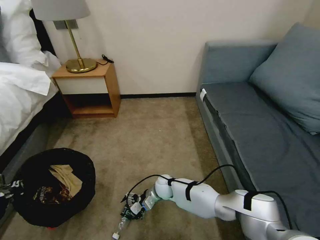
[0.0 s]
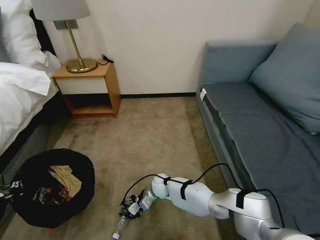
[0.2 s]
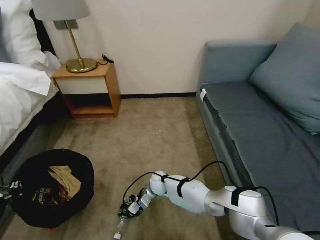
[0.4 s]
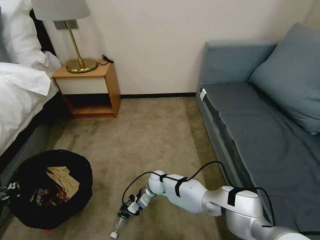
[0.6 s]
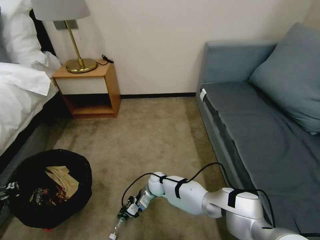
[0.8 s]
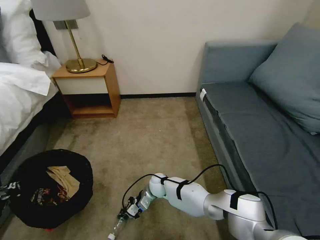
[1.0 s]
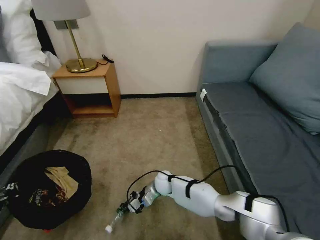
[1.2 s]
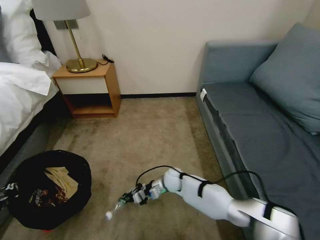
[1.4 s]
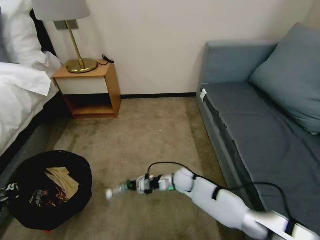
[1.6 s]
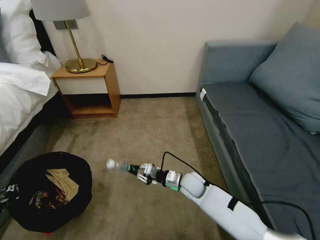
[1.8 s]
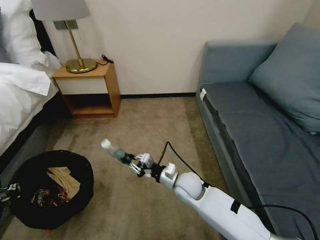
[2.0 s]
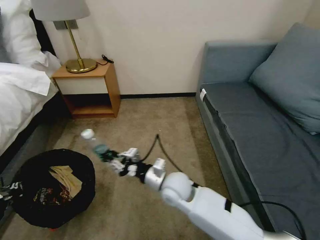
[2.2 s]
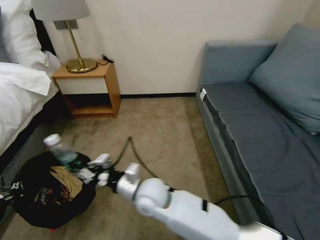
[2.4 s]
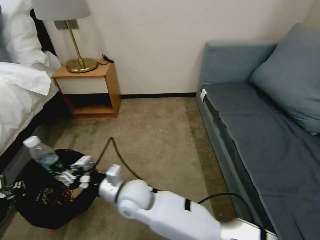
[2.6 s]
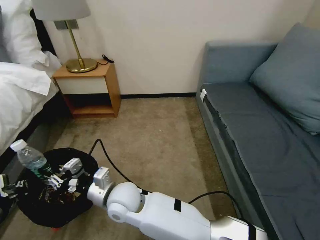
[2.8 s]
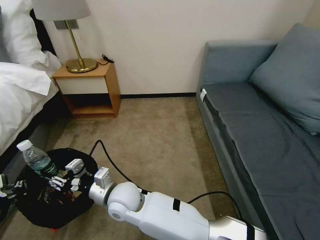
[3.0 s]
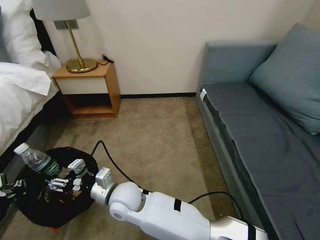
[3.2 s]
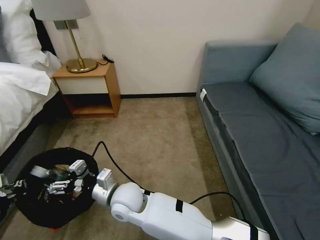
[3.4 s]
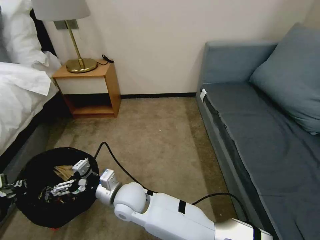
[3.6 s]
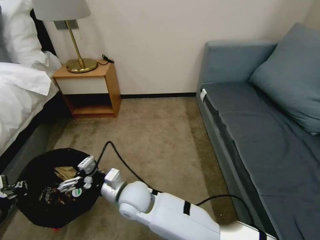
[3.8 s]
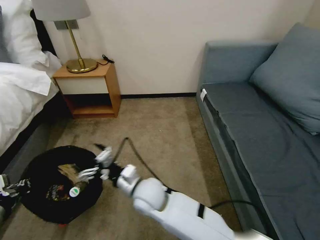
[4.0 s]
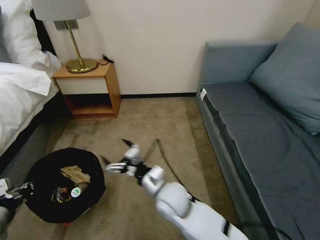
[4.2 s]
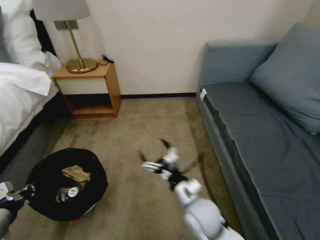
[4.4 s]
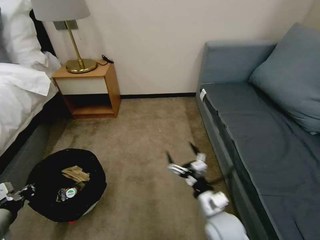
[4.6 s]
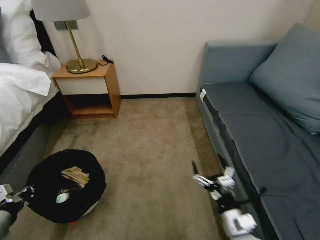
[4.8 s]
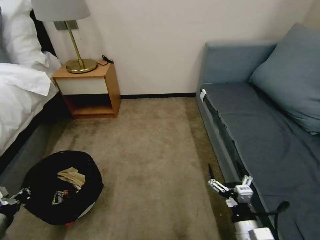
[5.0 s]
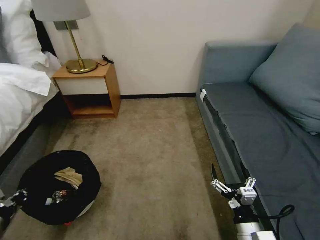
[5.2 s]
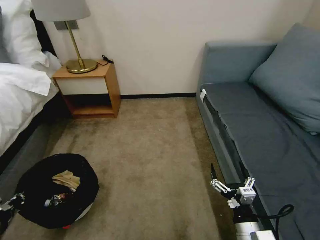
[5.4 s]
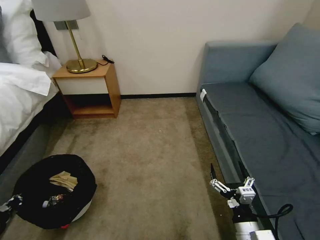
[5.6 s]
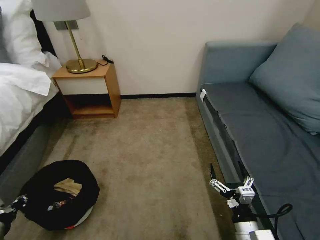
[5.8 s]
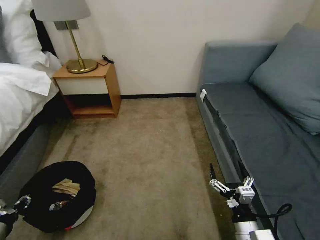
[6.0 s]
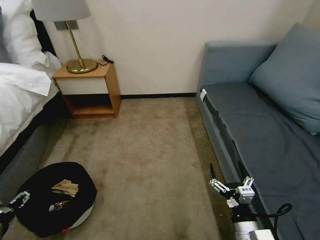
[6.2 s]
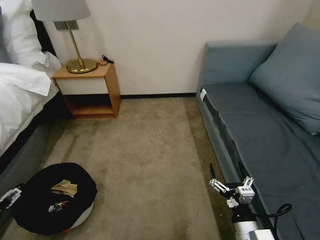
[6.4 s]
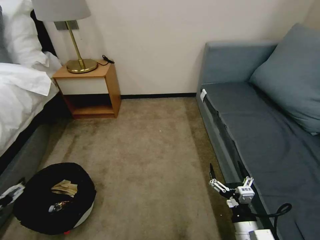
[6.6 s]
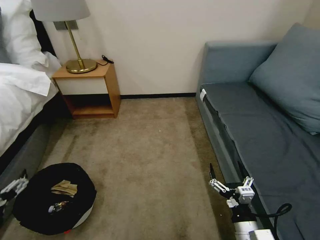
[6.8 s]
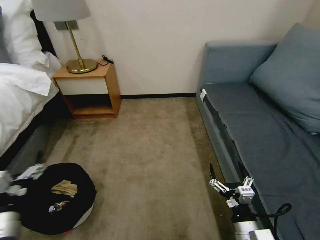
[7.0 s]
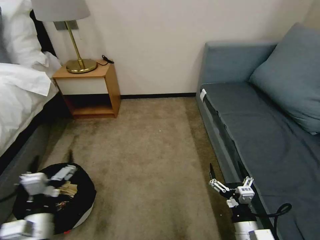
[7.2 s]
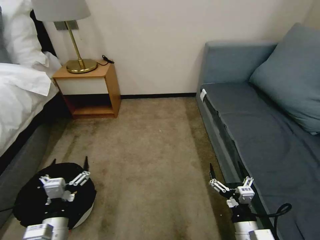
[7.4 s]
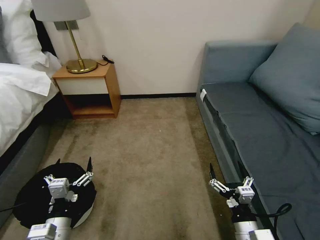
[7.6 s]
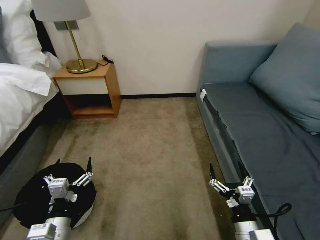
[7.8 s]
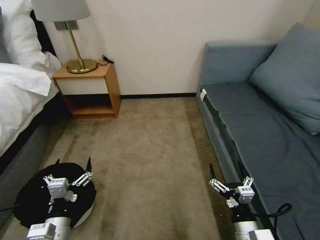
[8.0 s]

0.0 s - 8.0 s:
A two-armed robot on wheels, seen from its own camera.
Task of the whole recording: Pick up the trash bin, then pick up the garbage on the floor and place it into the trash bin.
0.0 s - 1.6 s: The right gripper travels to the right by some 10 cm, and closes its fingers.
1.6 s - 3.2 s: The right gripper goes approximately 30 cm to the left, upward and backward, and opens.
3.2 s - 4.8 s: The left gripper goes roughly 5 cm downward. The right gripper heads to the right, covering roughly 35 cm, and opens.
4.8 s - 6.4 s: The left gripper opens.
6.4 s - 8.0 s: The left gripper travels to the right by roughly 20 cm.

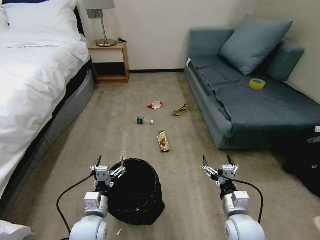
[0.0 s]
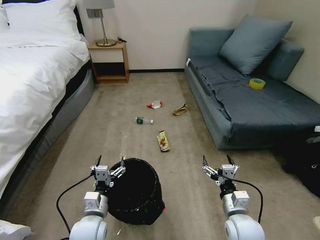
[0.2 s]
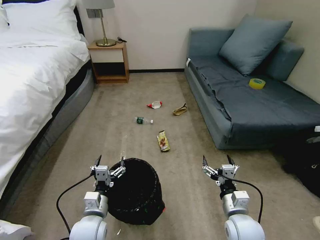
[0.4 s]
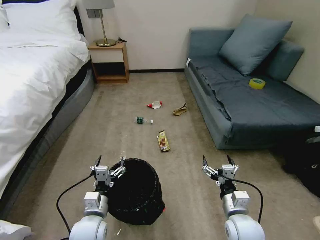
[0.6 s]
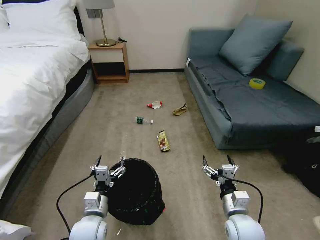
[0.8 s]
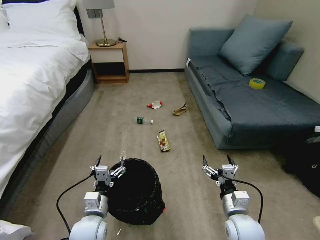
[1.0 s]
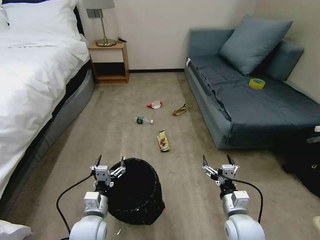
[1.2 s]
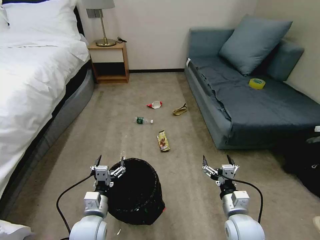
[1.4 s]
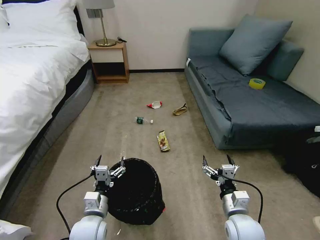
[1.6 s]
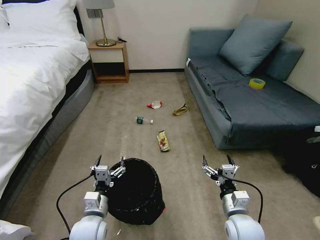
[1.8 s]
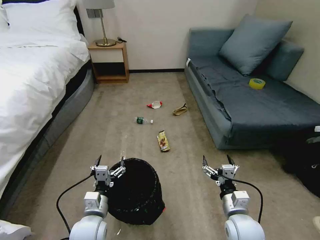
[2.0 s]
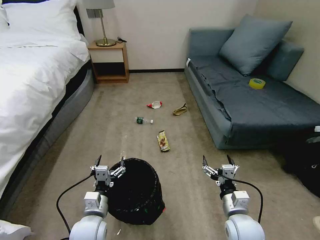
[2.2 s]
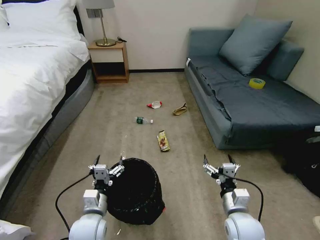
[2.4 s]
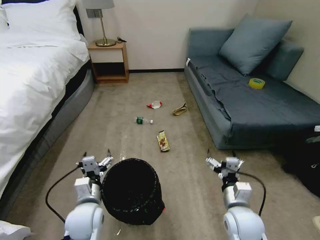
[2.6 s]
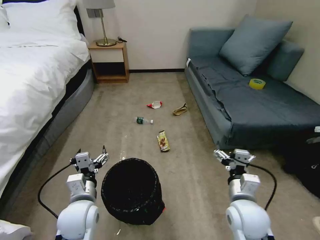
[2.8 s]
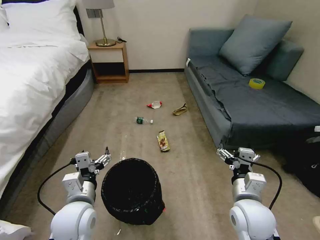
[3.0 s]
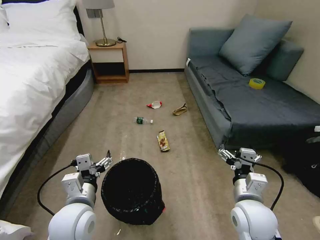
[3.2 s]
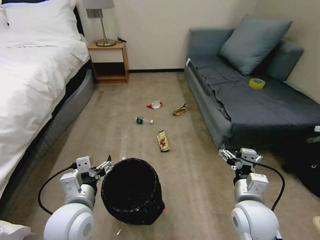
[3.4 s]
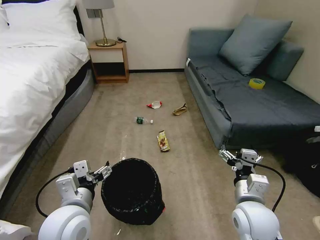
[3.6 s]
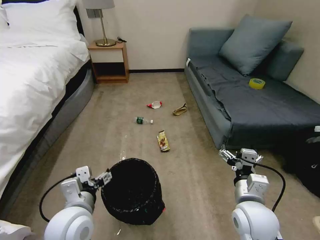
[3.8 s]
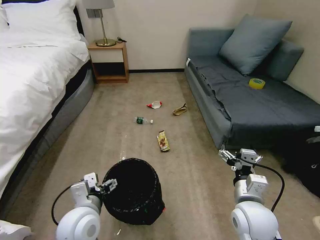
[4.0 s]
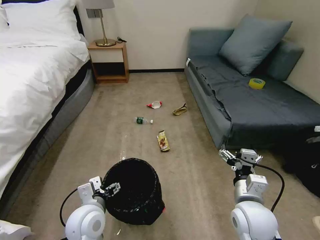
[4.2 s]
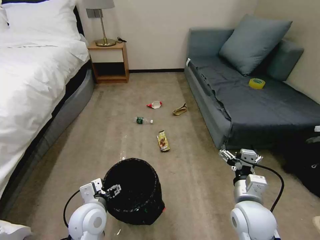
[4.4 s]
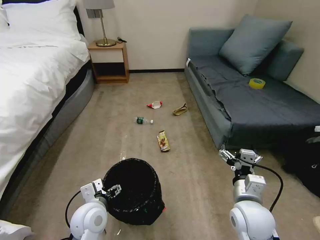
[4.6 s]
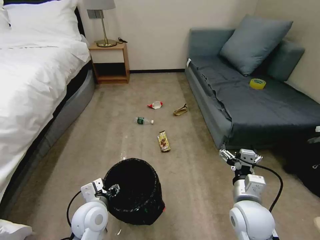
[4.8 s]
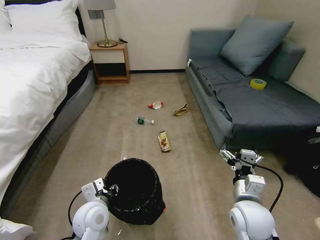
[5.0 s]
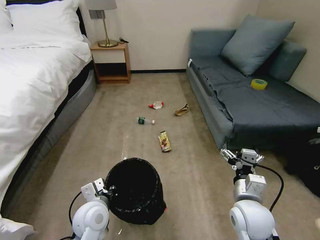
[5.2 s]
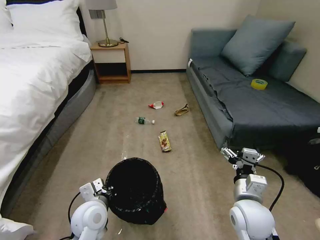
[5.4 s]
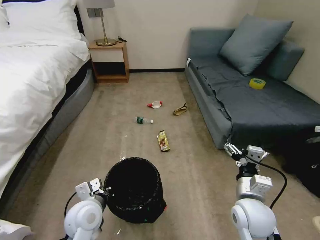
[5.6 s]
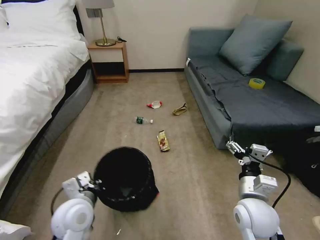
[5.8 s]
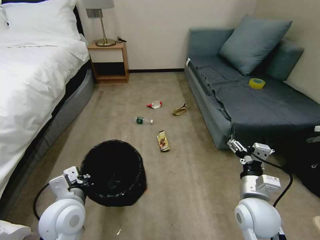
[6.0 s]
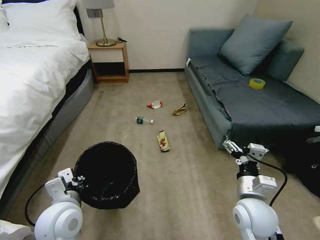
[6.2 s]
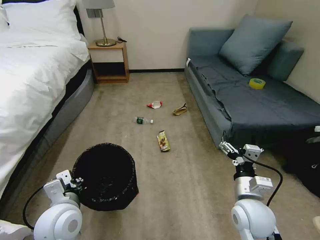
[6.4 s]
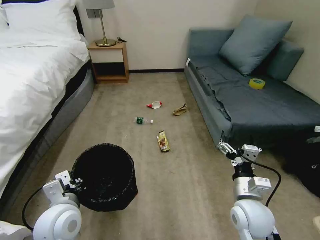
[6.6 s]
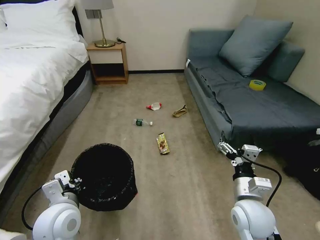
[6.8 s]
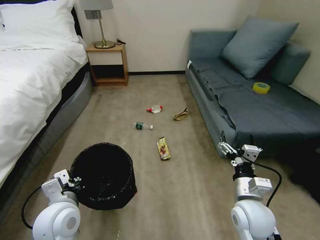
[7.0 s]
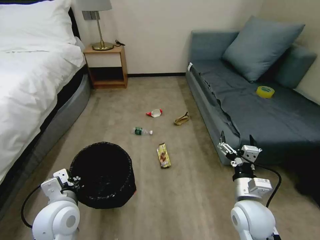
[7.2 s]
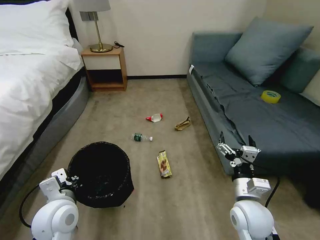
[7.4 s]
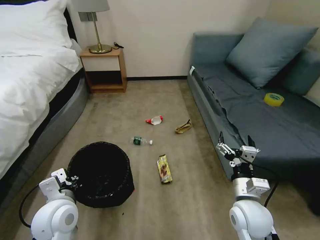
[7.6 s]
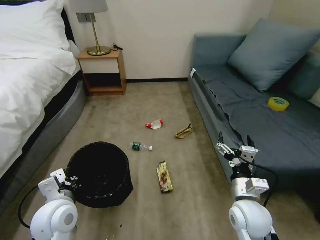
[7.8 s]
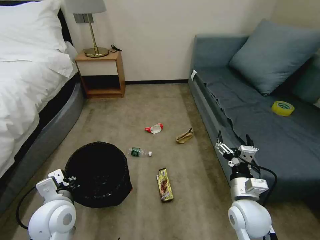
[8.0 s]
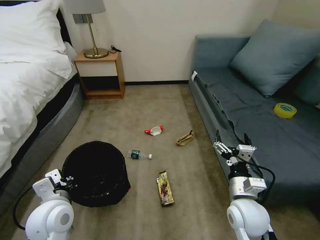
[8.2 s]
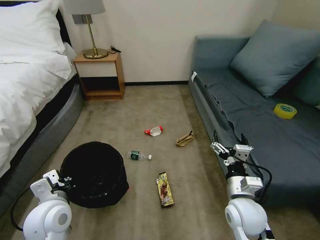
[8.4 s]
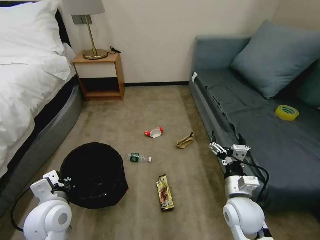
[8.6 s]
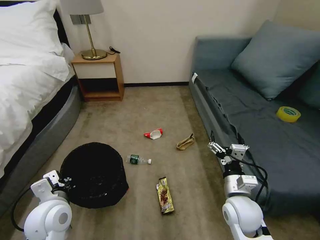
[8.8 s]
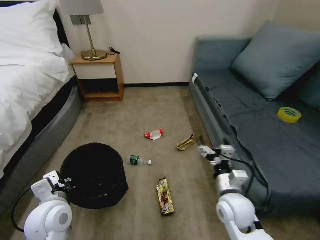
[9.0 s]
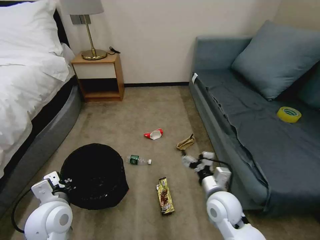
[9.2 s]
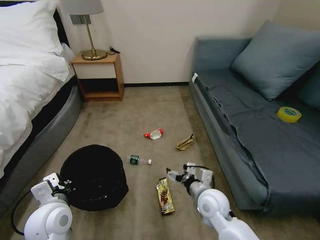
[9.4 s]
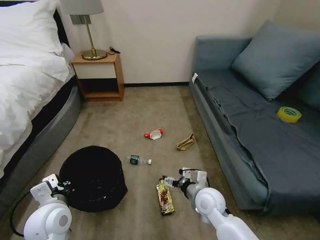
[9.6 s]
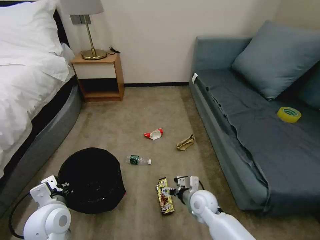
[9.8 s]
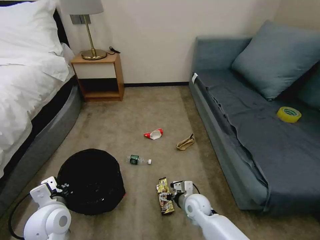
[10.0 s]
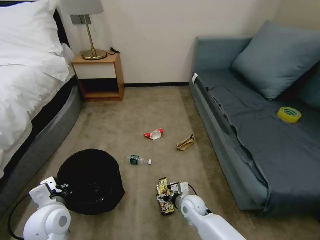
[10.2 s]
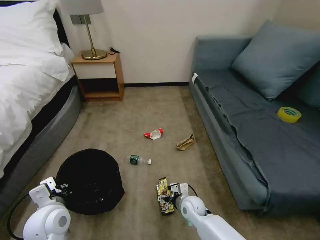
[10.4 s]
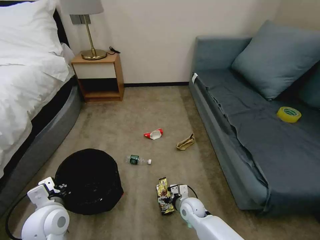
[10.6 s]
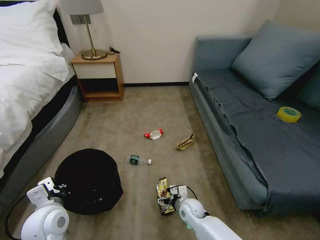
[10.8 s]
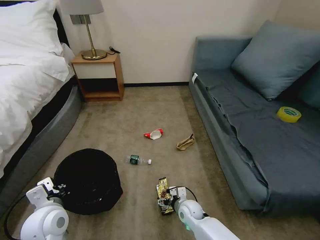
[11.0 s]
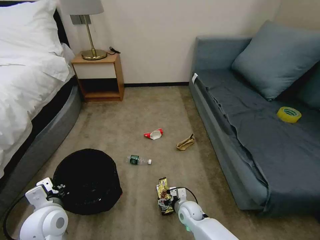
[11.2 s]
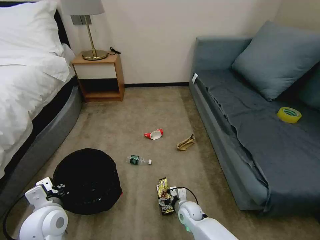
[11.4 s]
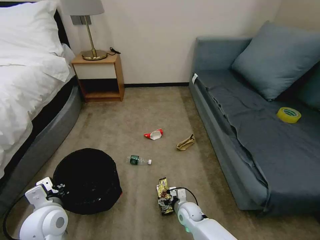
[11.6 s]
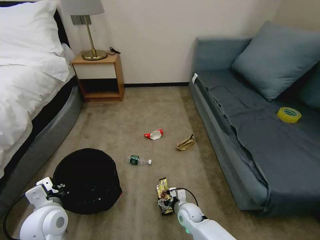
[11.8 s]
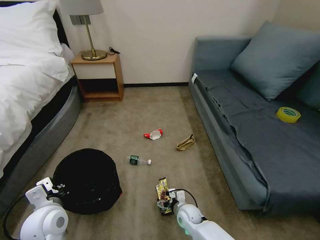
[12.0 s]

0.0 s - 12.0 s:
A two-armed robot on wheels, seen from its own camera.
Task of the whole recording: Pick up the trash bin, then pick up the garbage on the floor and place it into the trash bin.
1.6 s - 3.0 s: The two grippers go roughly 10 cm upward.
3.0 s - 4.4 s: The left gripper ends up approximately 5 cm from where it was.
4.4 s - 6.0 s: The left gripper travels upward by approximately 5 cm, and closes.
9.0 s - 10.4 s: The right gripper heads downward and to the left, covering approximately 20 cm.
10.4 s - 12.0 s: The grippers make only small movements.

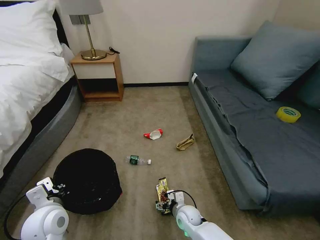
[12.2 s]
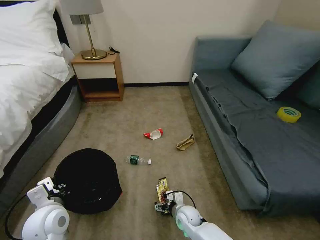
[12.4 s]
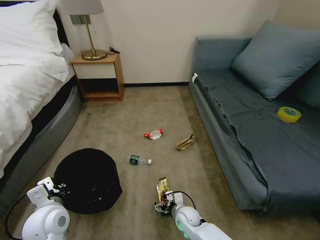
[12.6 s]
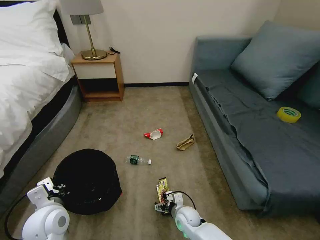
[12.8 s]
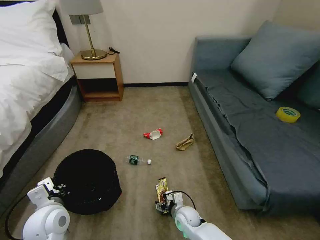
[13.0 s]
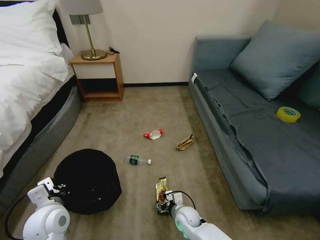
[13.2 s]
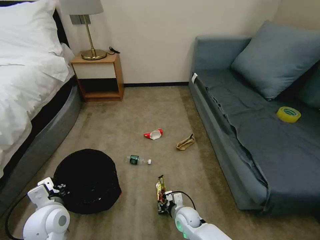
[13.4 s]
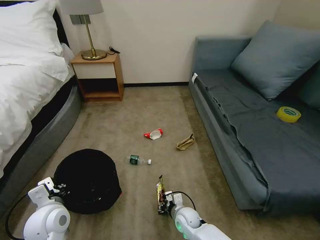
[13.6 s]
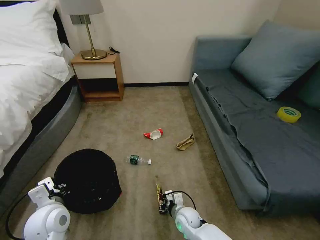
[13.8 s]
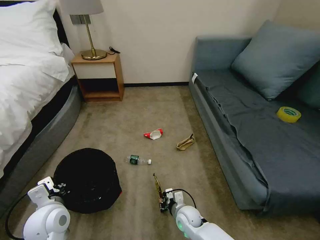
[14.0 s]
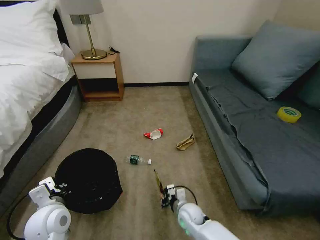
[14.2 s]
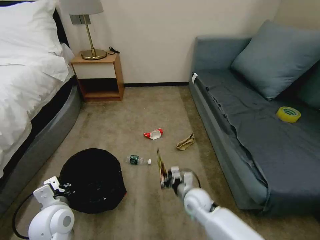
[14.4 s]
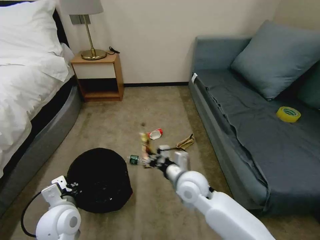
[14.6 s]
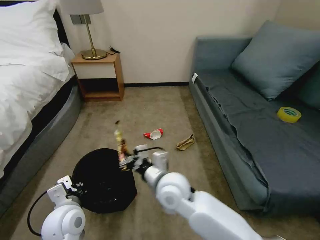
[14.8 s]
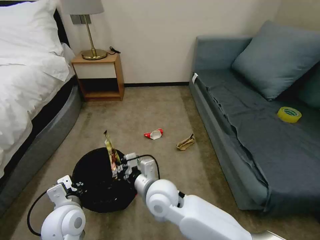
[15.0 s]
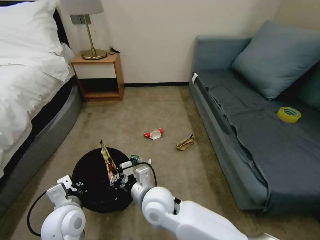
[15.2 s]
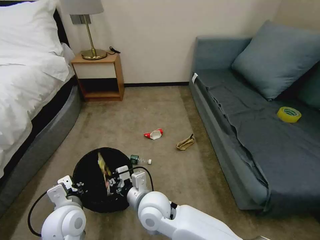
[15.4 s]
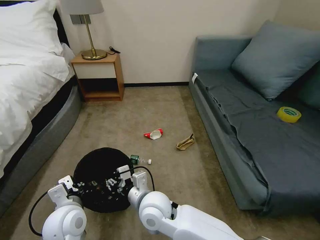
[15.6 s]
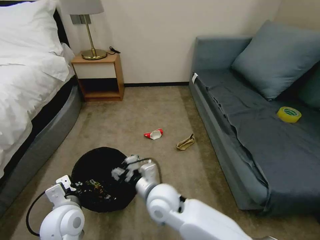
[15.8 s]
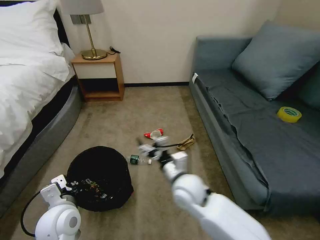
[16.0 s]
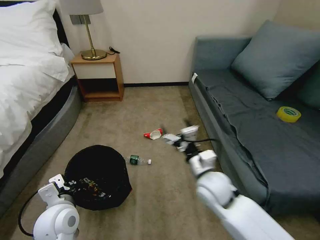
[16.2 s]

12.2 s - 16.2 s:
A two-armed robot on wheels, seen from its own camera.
Task of the whole recording: Pick up the trash bin, then pick up the garbage on the floor and place it into the trash bin.
12.2 s - 13.6 s: The right gripper closes.
13.6 s - 14.8 s: The right gripper goes approximately 25 cm upward.
14.8 s - 16.2 s: The right gripper shifts approximately 10 cm to the right, and opens.
